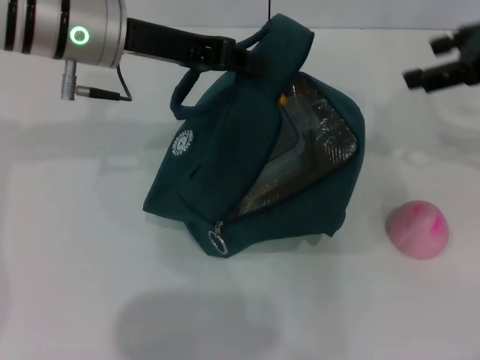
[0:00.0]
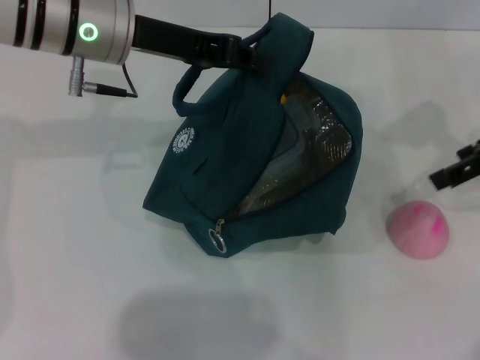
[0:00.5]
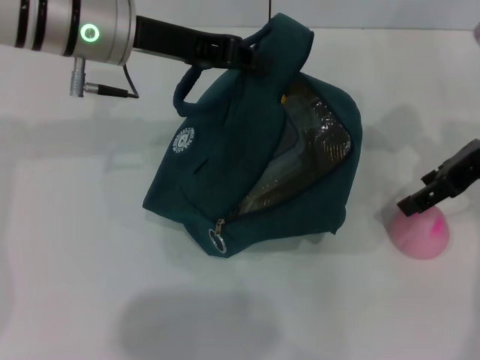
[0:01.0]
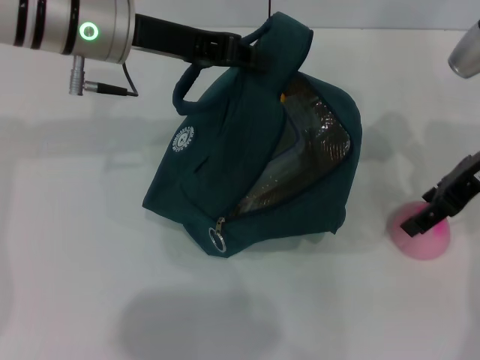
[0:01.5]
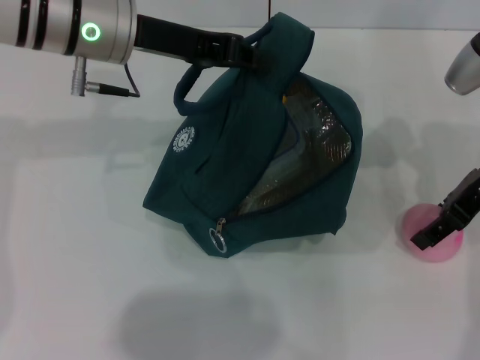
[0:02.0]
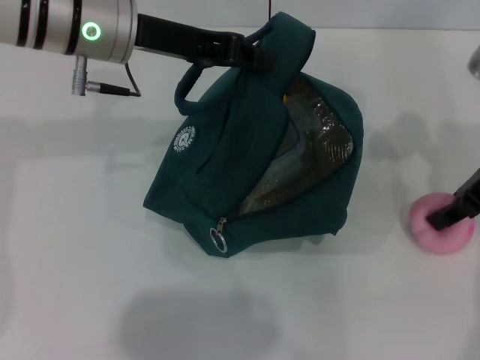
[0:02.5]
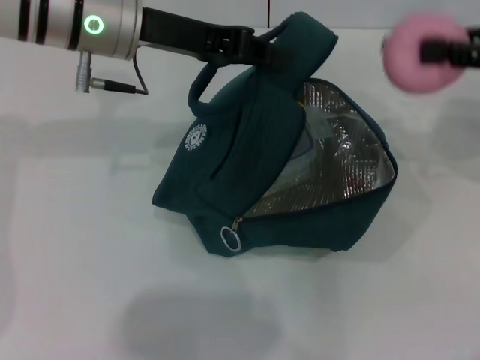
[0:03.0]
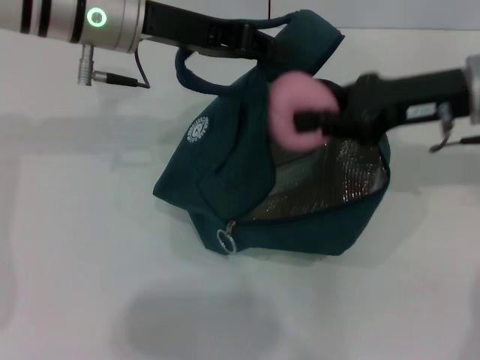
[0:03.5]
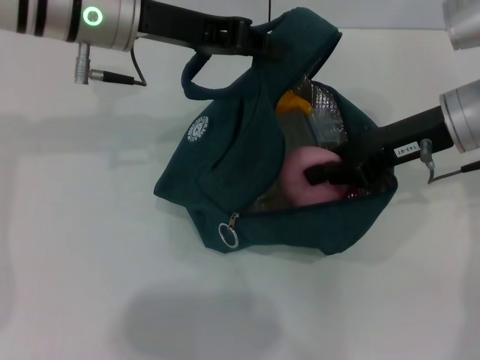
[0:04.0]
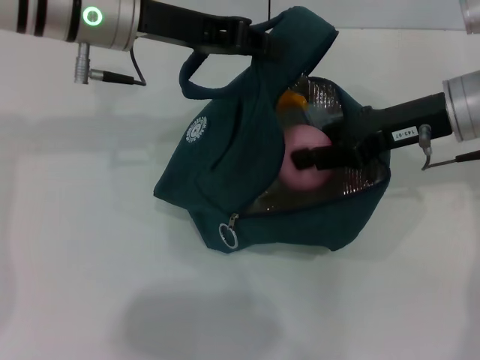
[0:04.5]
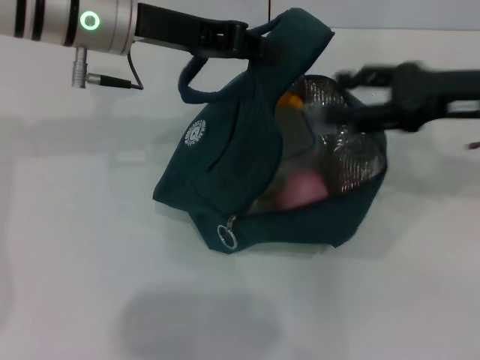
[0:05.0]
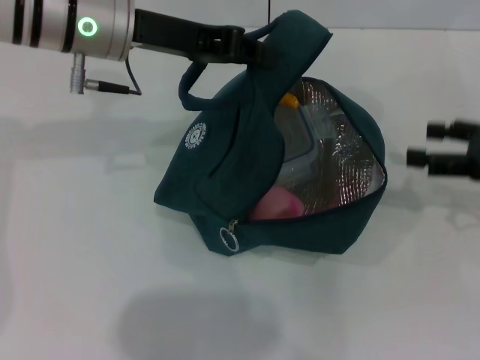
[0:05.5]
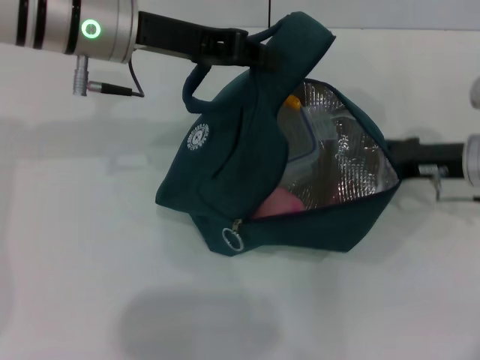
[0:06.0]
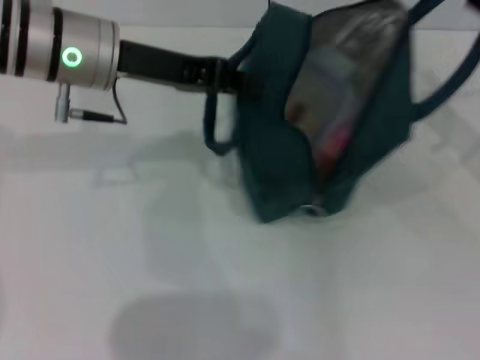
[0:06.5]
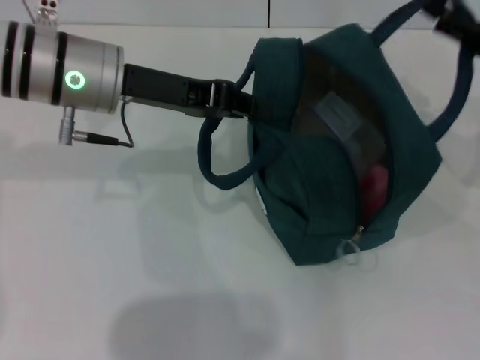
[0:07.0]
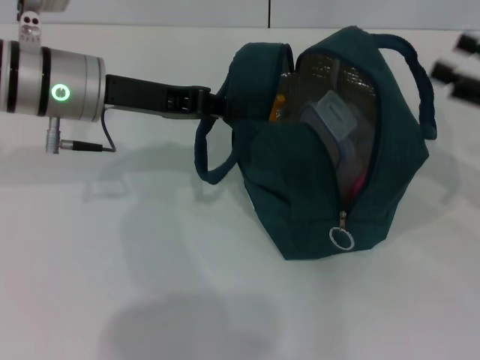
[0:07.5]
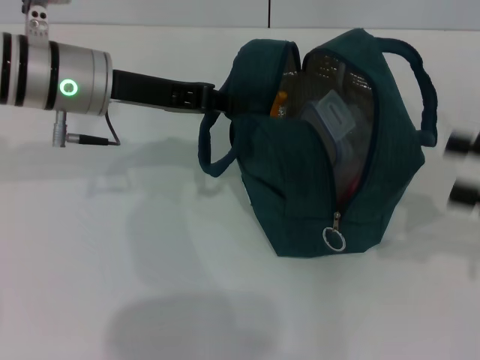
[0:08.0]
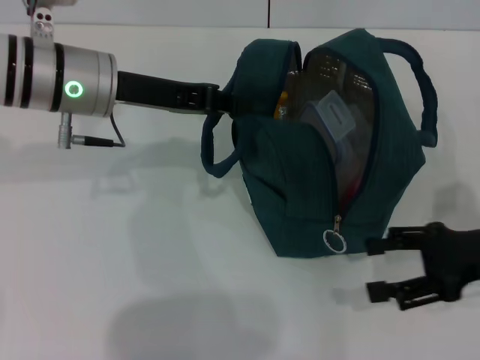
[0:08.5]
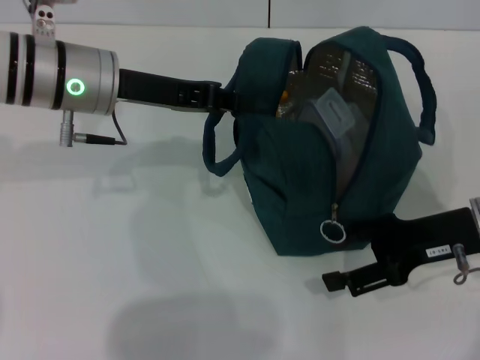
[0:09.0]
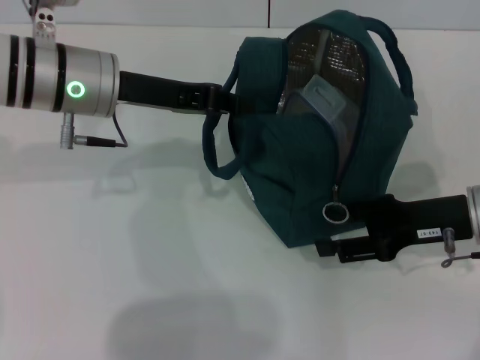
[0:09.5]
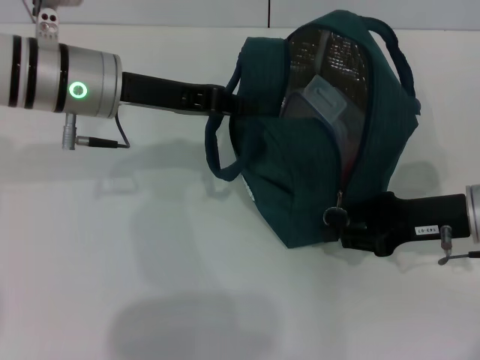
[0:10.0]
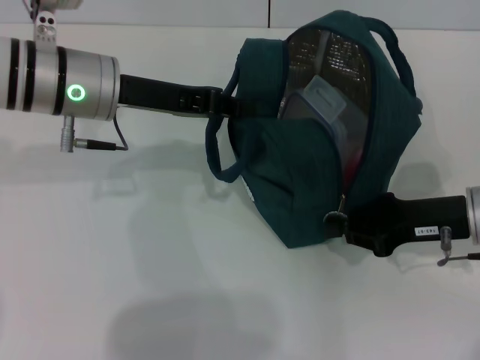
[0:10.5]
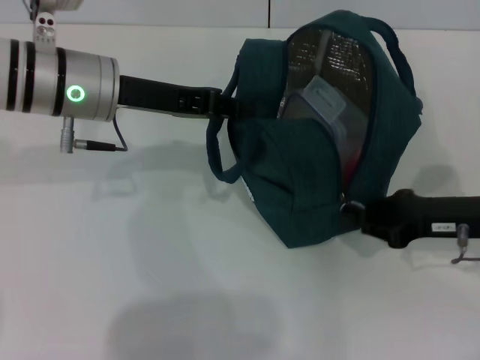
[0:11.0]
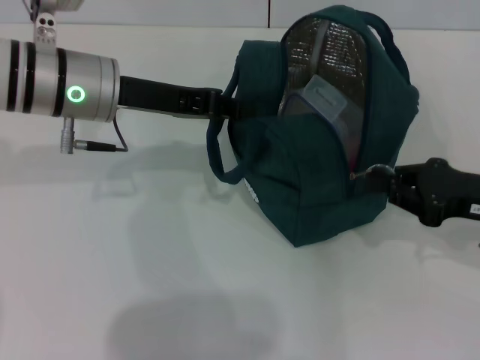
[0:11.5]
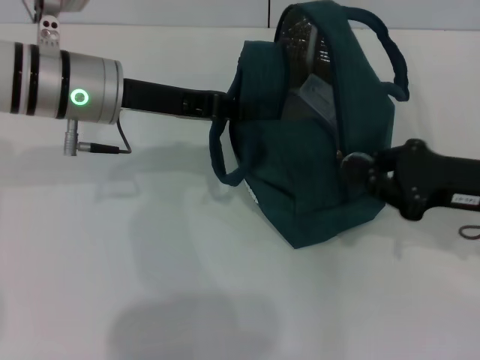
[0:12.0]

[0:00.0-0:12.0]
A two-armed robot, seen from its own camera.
Step, 0:00.0 to 0:02.0: Grab the peach with your right hand.
Step, 0:05.5 to 0:07.0: Hold the lunch bag with your right hand.
0:00.0 to 0:02.0: The right gripper goes roughly 10 cm downward.
0:02.0 to 0:04.0: The right gripper travels to the right and back again, about 10 cm each way, and closes.
0:04.0 to 0:06.0: The right gripper heads downward, covering roughly 10 cm, and opens up.
0:06.0 to 0:08.0: The right gripper heads backward, to the right and upward, covering some 15 cm. Meanwhile the left gripper shifts by approximately 5 cm.
0:08.0 to 0:10.0: The right gripper travels to the left, downward and forward by roughly 15 cm, and closes its fingers.
0:10.0 to 0:12.0: The right gripper closes up.

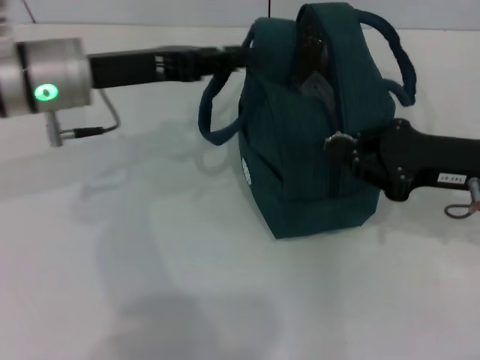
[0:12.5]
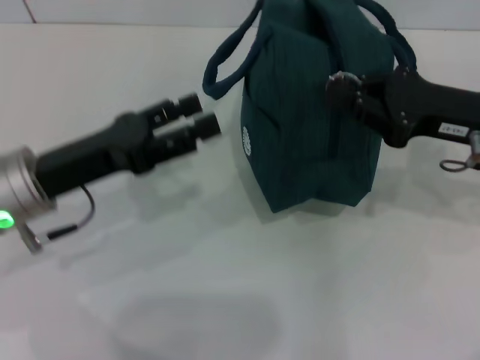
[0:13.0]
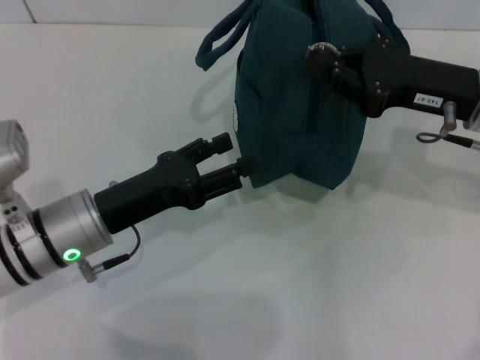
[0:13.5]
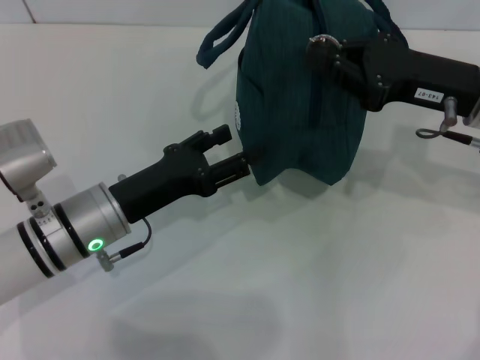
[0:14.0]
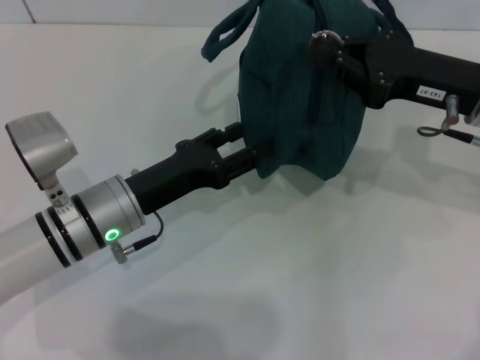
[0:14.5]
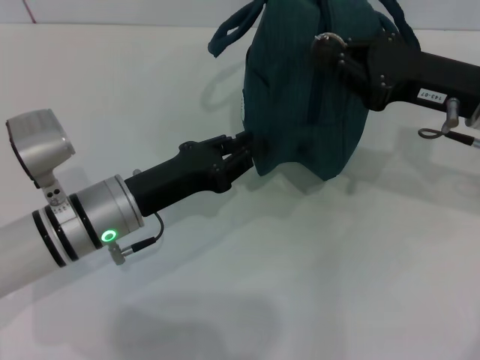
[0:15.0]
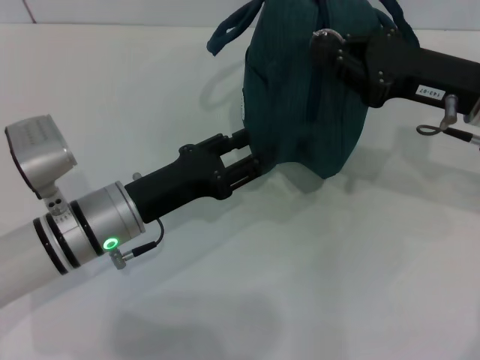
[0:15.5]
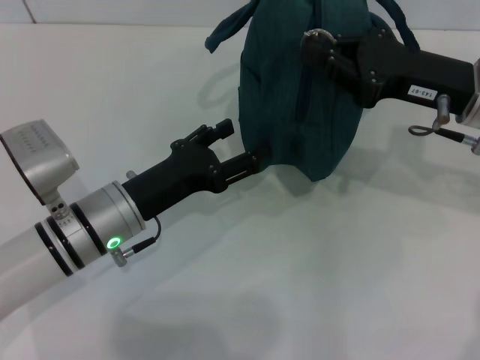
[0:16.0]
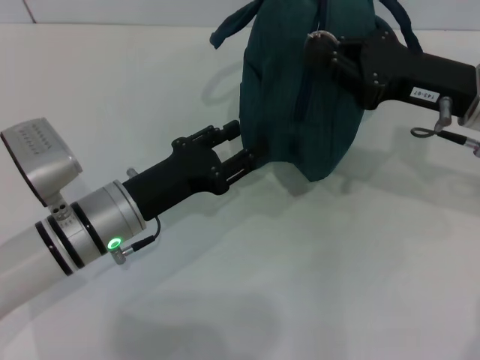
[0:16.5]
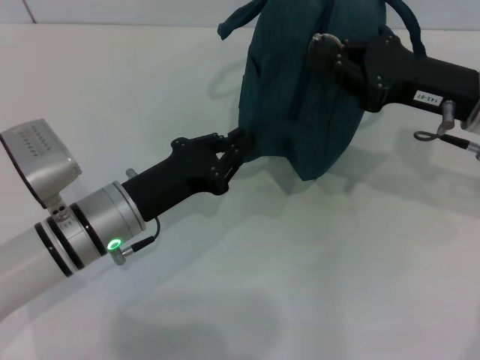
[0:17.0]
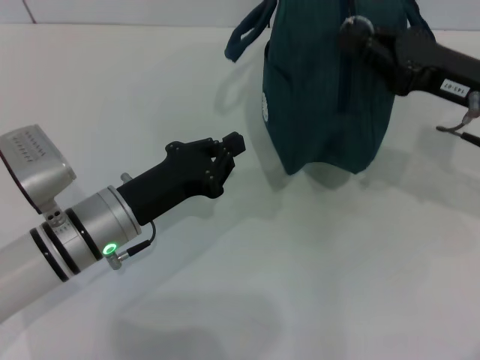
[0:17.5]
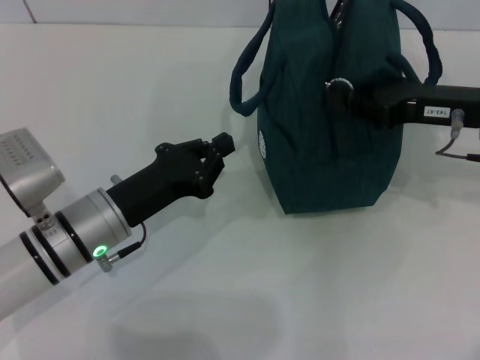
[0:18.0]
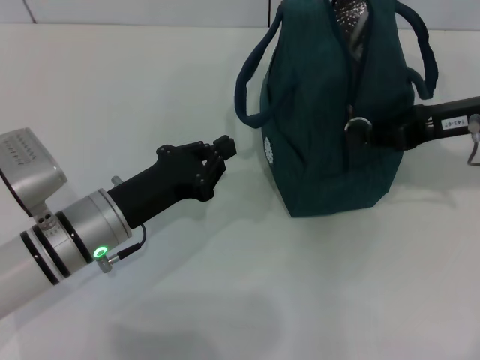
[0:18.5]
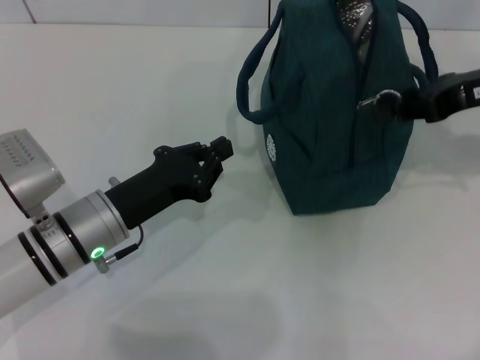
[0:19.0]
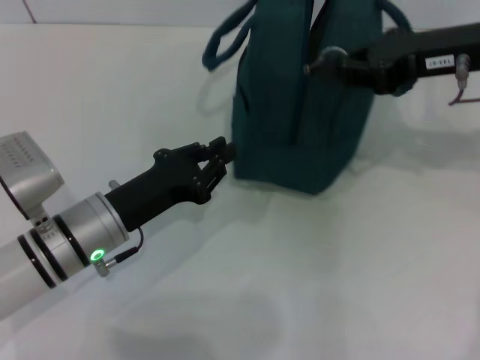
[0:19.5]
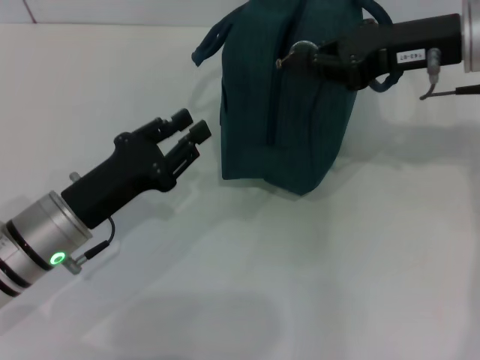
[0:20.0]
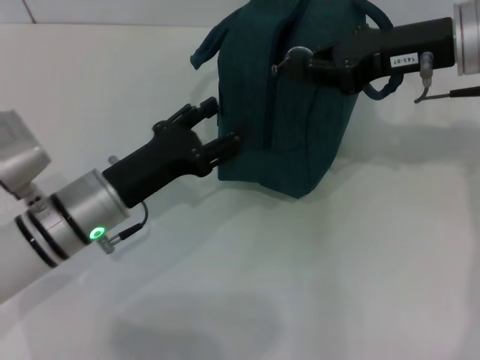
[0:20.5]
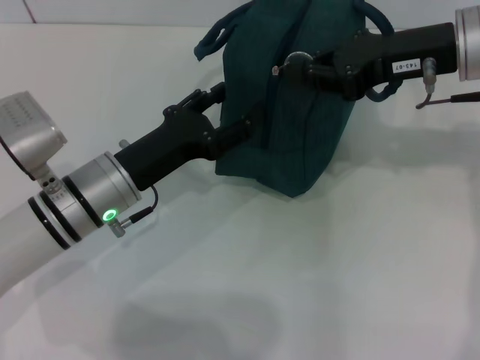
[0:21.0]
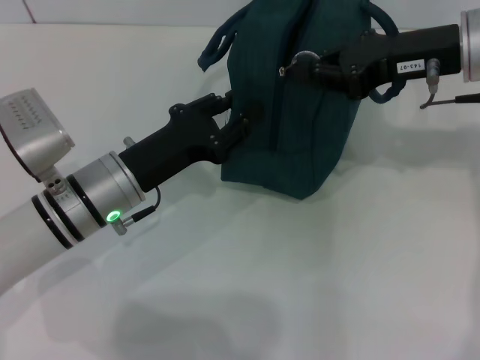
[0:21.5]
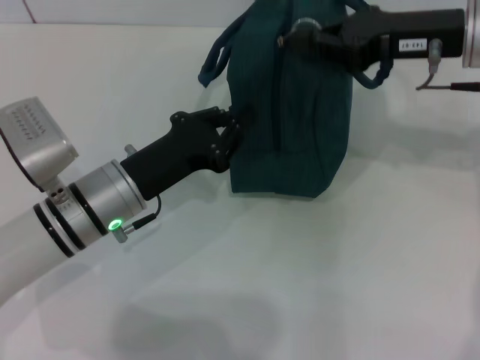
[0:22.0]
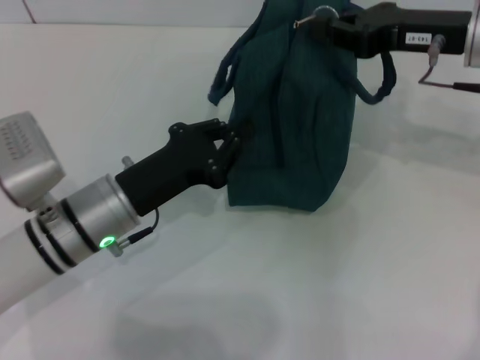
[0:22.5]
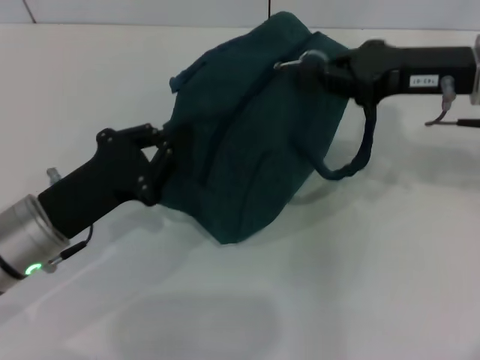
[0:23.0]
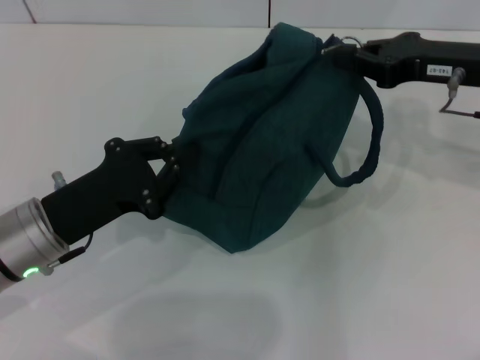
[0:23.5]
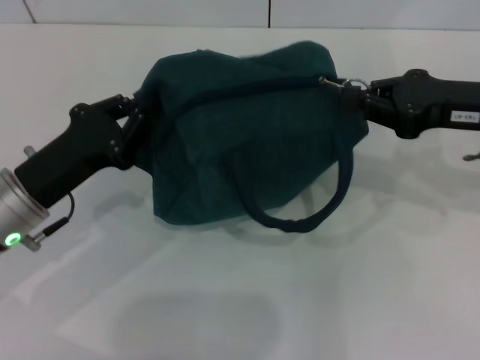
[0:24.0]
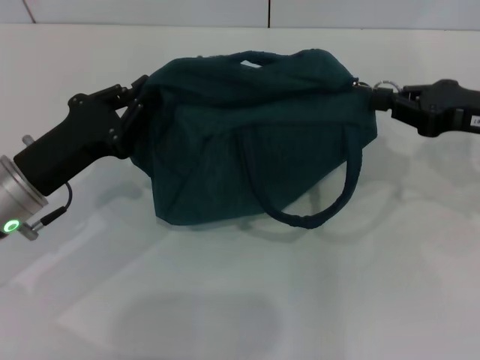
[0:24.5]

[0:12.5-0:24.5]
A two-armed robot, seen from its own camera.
0:12.5 to 0:14.5: The right gripper moves about 5 cm. Meanwhile the left gripper shifts some 15 cm downward and backward, and opens up.
0:14.5 to 0:16.5: The left gripper closes, then opens again.
0:16.5 to 0:18.5: The left gripper closes.
0:18.5 to 0:20.5: The left gripper opens; the right gripper shifts some 5 cm to the left.
0:20.5 to 0:22.5: The left gripper closes.
0:22.5 to 0:24.5: The right gripper heads to the right and backward, covering roughly 10 cm, while the left gripper shifts approximately 10 cm to the left.

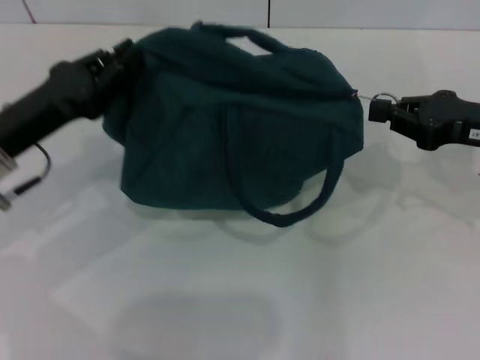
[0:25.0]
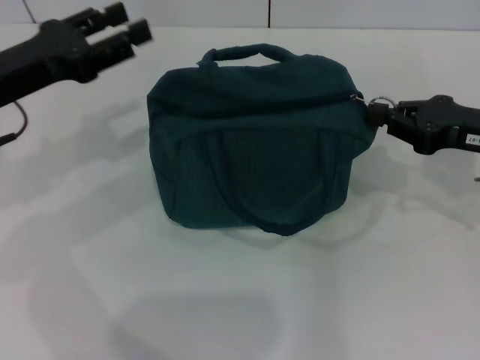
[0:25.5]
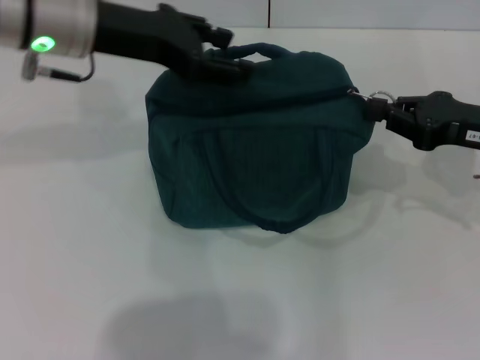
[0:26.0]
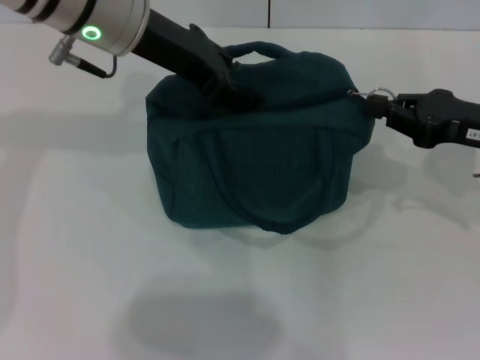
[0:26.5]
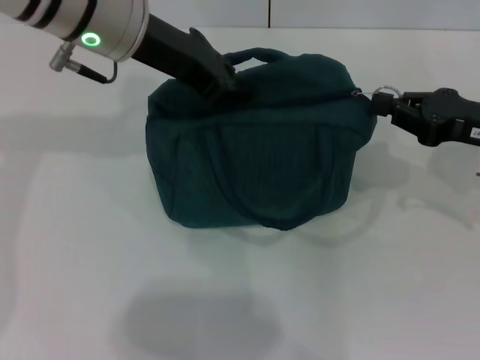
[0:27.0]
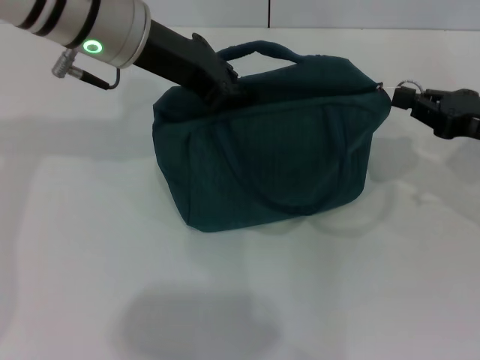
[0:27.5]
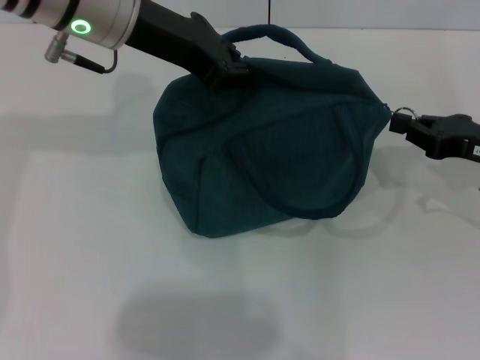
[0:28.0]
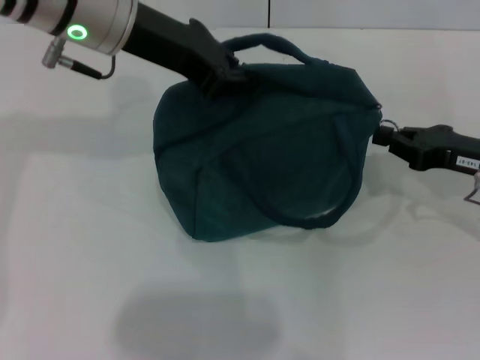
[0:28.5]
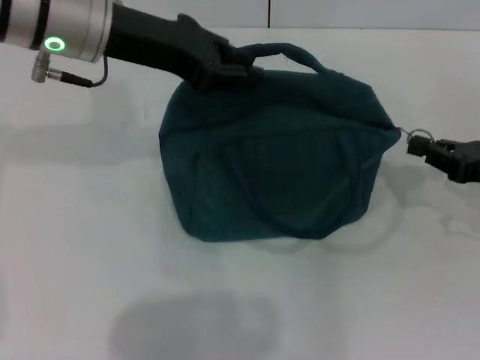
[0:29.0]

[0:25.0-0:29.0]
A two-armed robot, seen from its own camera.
Step, 0:25.0 to 0:29.0: Hold the lunch bag with your left hand.
0:25.0 to 0:27.0: The left gripper moves to the right, upward and forward, about 20 cm, and opens, then closes again.
0:27.0 to 0:29.0: The right gripper moves downward, some 5 cm.
